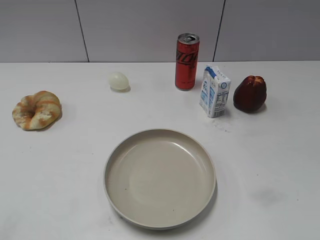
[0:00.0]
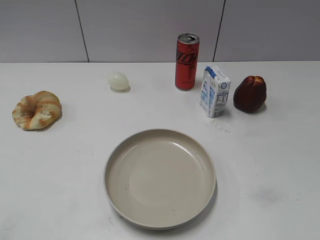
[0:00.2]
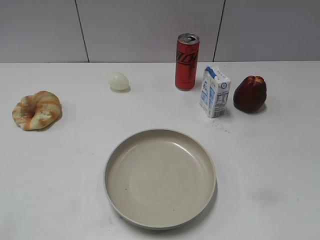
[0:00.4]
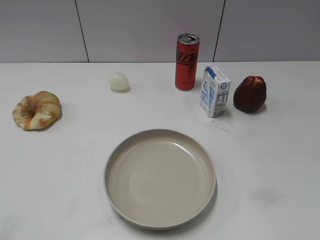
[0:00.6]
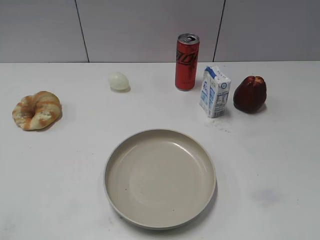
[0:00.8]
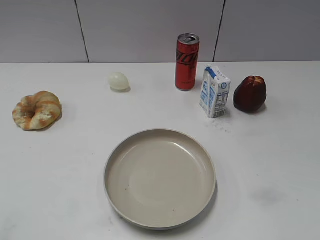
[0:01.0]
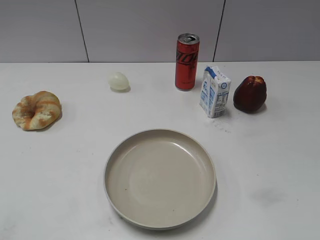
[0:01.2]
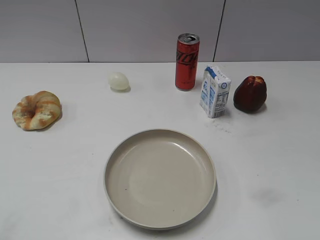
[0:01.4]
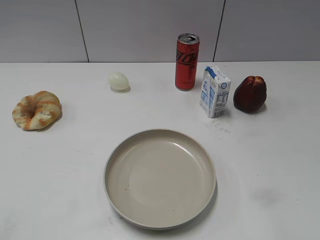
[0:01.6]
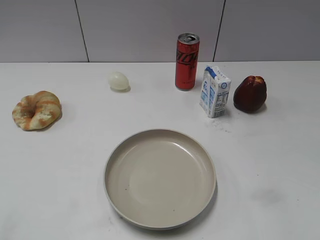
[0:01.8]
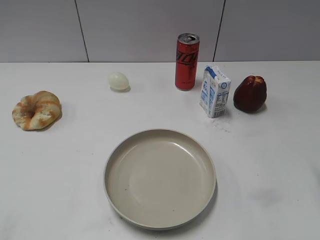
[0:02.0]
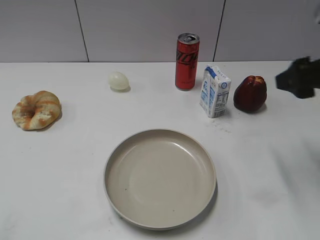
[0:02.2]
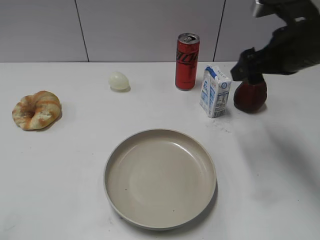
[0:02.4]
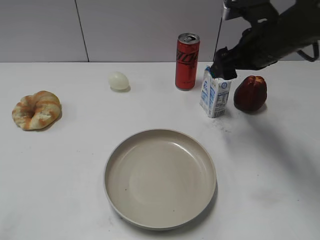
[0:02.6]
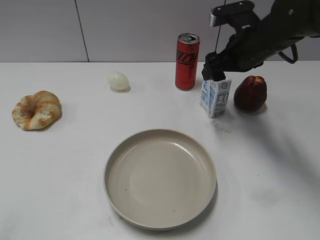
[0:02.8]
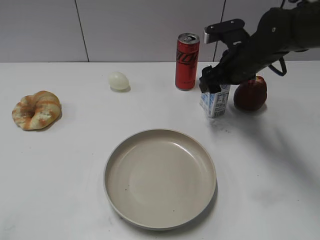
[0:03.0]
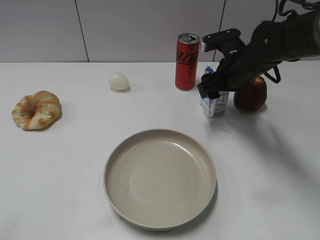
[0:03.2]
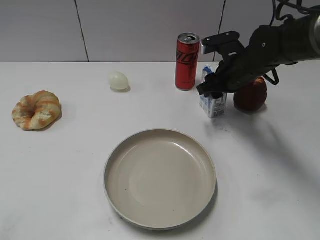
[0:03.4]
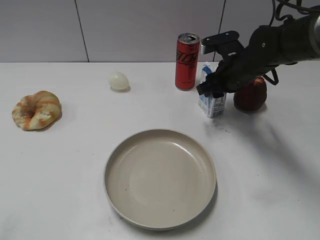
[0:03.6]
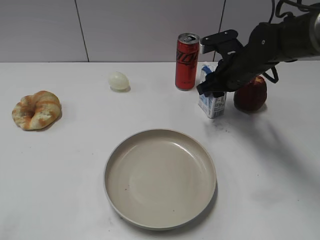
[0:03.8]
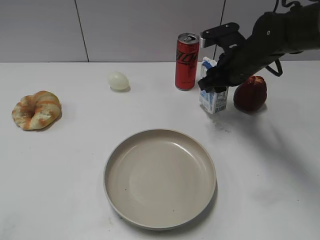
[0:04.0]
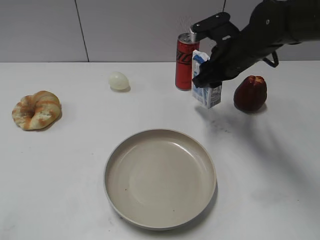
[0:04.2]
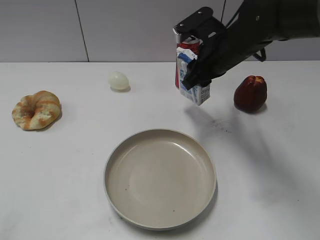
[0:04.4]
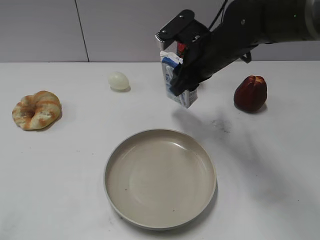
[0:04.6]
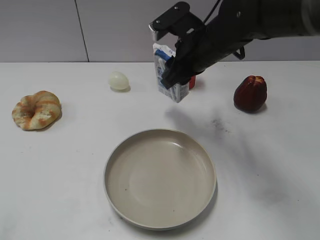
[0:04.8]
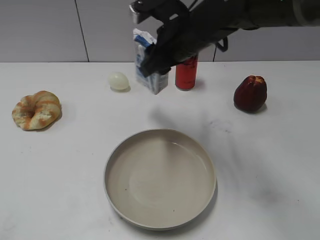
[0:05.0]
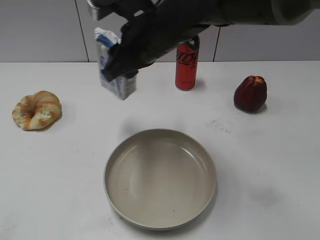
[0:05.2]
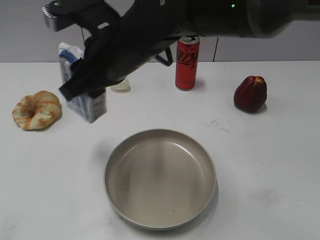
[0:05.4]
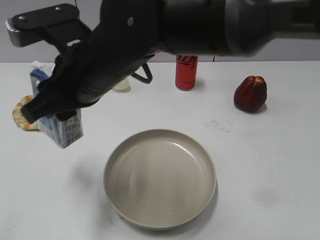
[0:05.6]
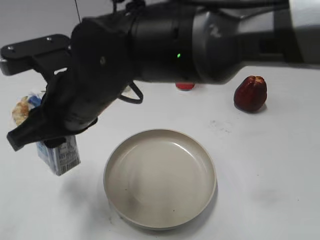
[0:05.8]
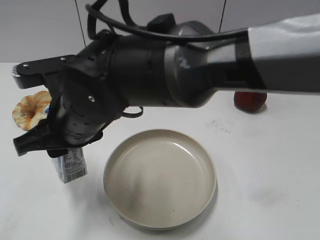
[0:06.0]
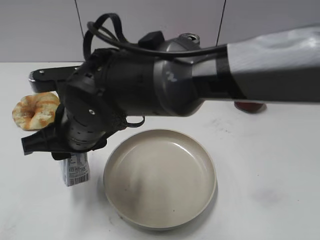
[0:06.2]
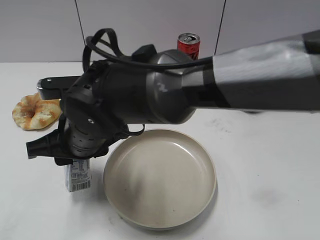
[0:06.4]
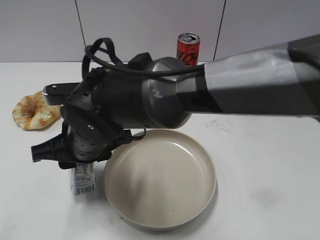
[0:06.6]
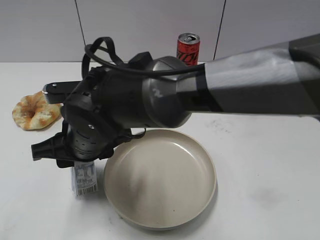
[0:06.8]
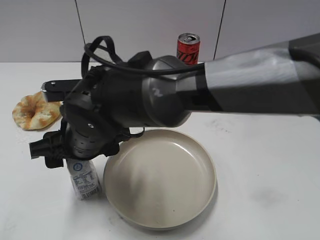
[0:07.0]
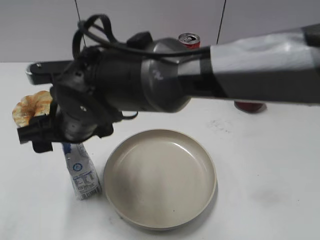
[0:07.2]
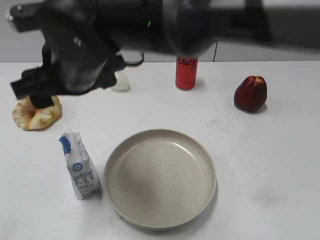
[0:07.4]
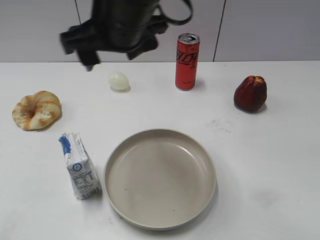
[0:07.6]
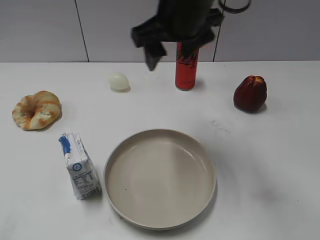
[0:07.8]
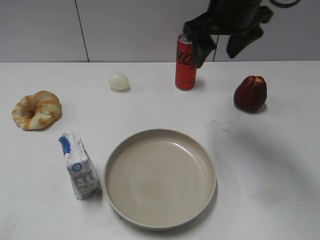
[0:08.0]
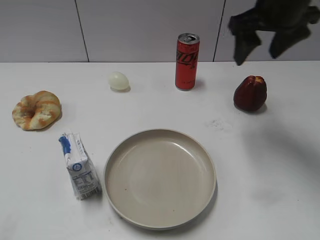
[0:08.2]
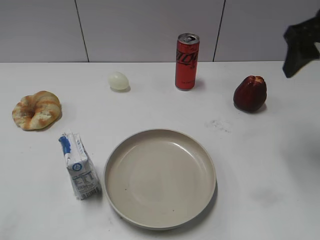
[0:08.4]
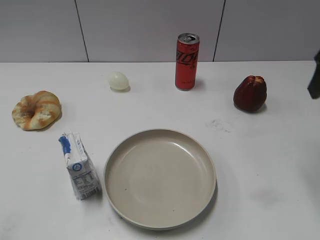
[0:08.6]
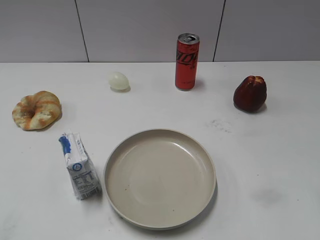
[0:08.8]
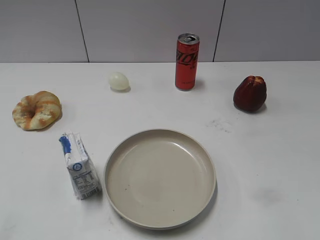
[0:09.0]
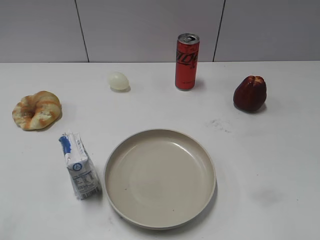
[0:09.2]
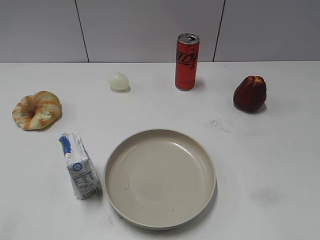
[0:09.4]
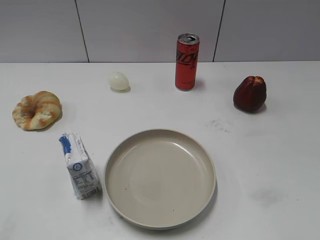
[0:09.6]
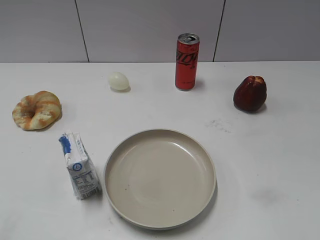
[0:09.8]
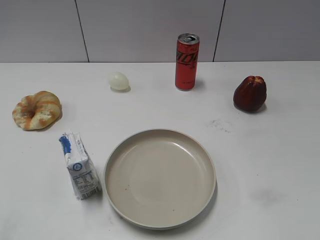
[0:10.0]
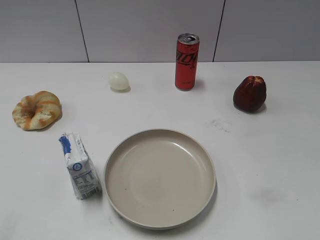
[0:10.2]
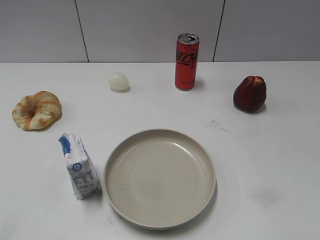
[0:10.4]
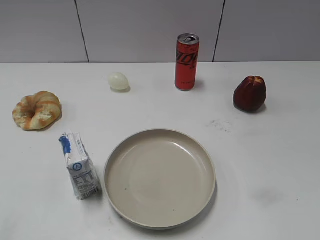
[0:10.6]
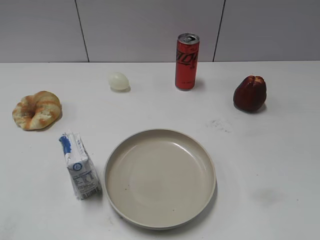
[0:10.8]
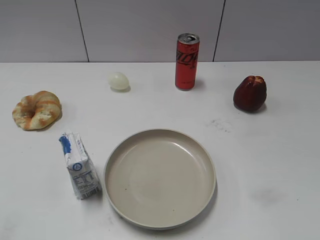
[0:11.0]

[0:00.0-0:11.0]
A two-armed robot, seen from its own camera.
Step, 0:00.8 to 0:03.8: Grasp the milk with right gripper.
Step, 0:04.0 to 0:07.2: Place the milk on the table with right gripper.
0:01.6 to 0:03.2: The right gripper goes roughly 40 cm forward, downward and to the left, and opens, then closes once more.
0:03.2 to 0:04.8: The right gripper travels to the left and upward by approximately 10 cm, and closes up.
0:04.8 to 0:06.2: The right gripper is displaced to the left and backward by about 20 cm.
0:06.2 to 0:07.8: The right gripper travels to the right, upward and forward by approximately 20 cm, and opens.
0:07.8 to 0:09.4: The right gripper is displaced backward and to the right by some 40 cm.
